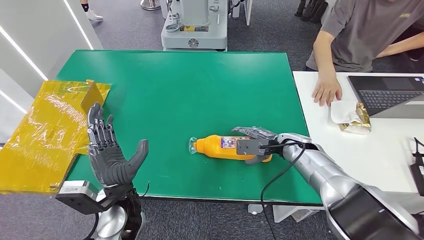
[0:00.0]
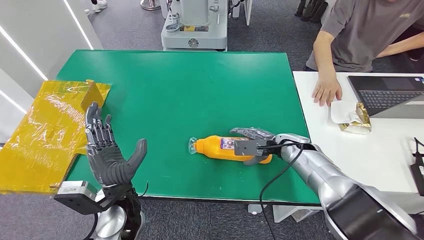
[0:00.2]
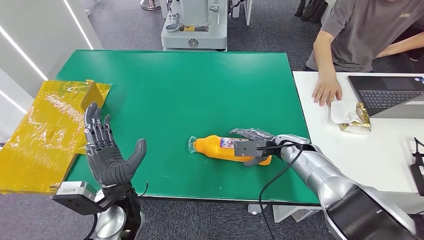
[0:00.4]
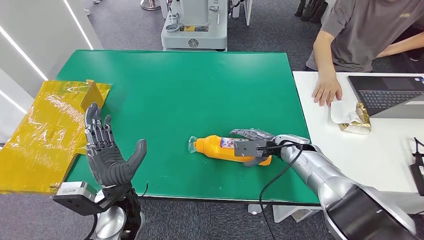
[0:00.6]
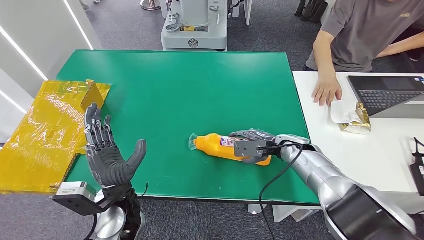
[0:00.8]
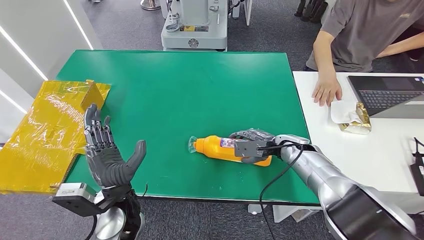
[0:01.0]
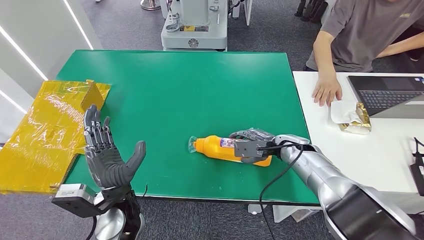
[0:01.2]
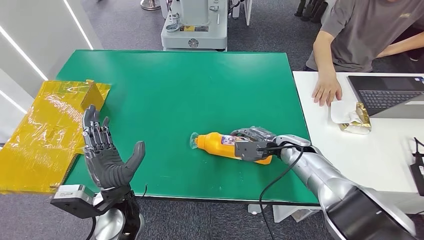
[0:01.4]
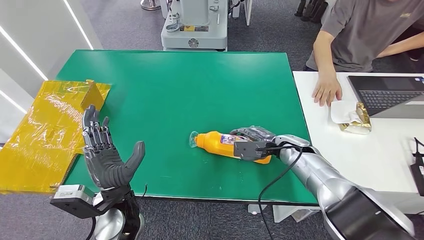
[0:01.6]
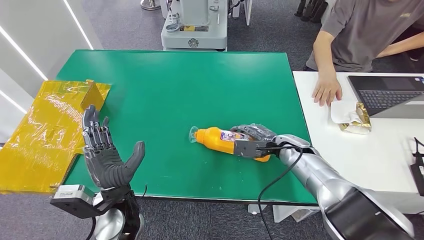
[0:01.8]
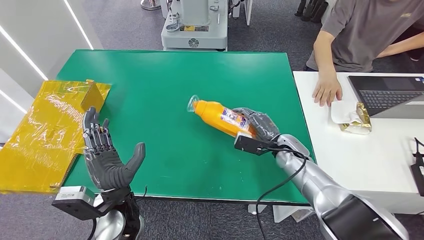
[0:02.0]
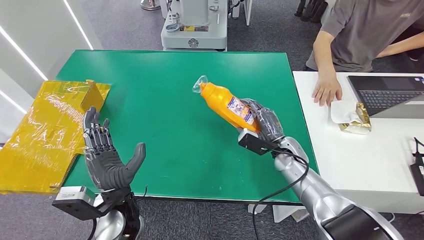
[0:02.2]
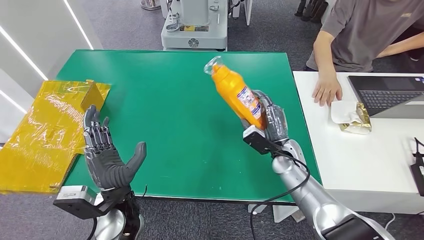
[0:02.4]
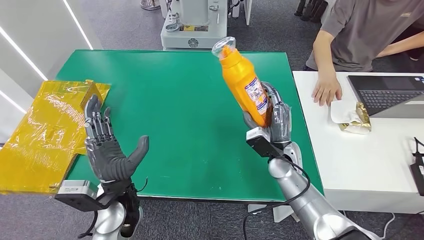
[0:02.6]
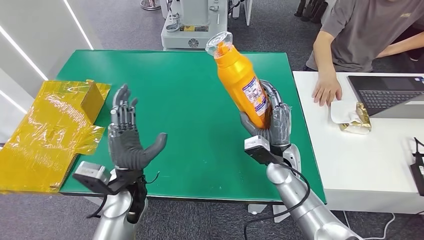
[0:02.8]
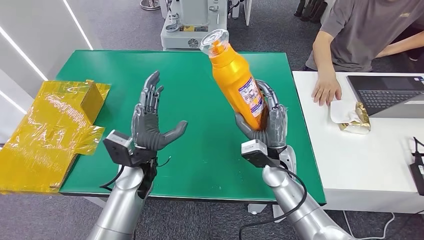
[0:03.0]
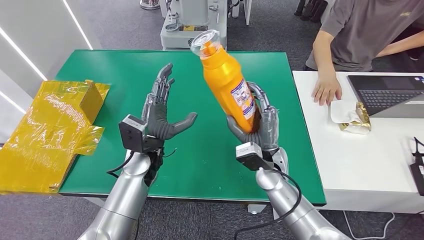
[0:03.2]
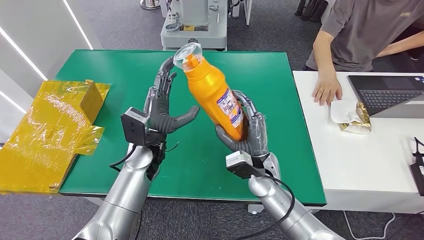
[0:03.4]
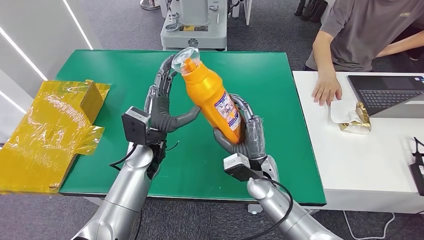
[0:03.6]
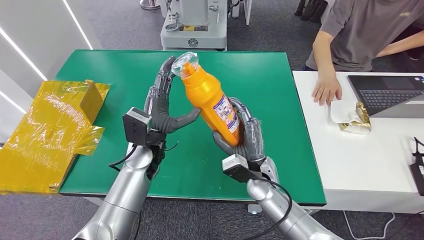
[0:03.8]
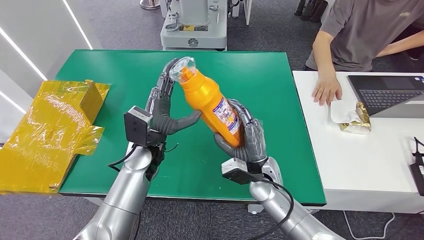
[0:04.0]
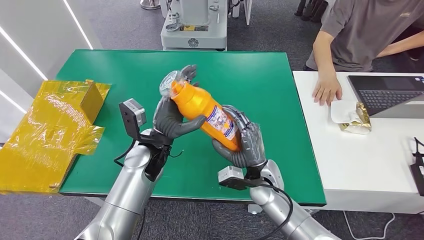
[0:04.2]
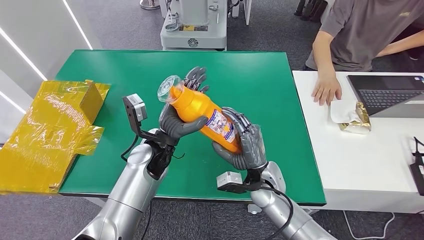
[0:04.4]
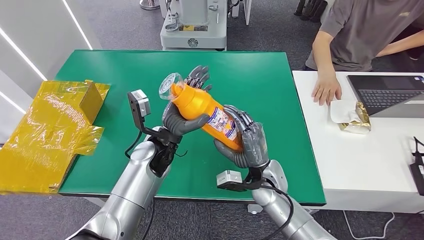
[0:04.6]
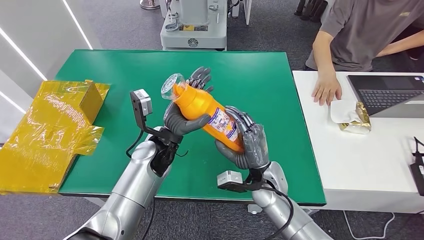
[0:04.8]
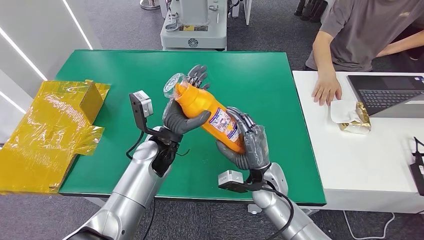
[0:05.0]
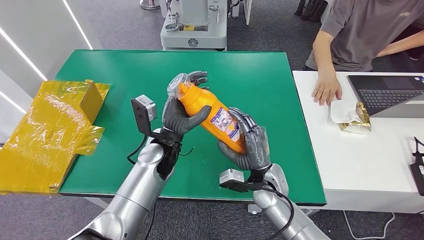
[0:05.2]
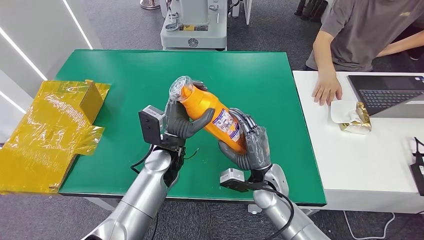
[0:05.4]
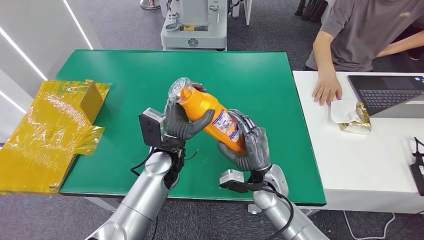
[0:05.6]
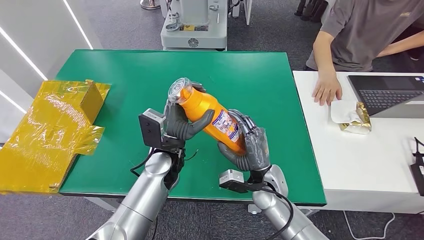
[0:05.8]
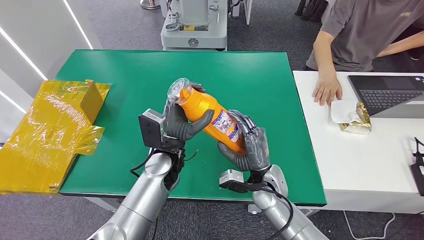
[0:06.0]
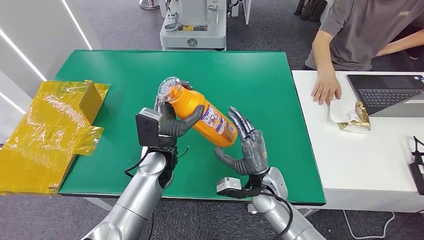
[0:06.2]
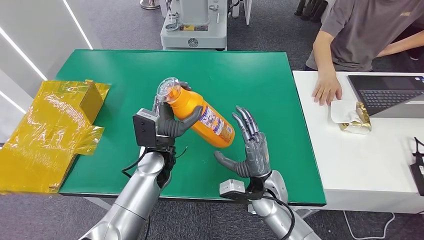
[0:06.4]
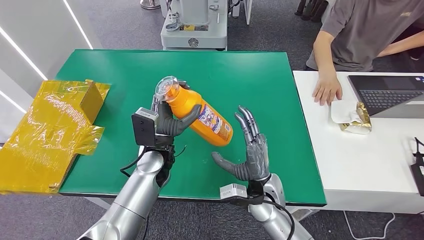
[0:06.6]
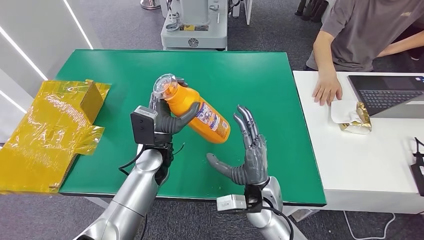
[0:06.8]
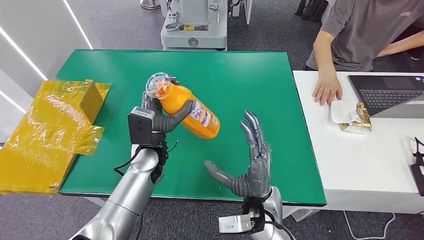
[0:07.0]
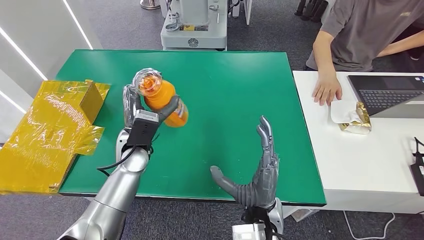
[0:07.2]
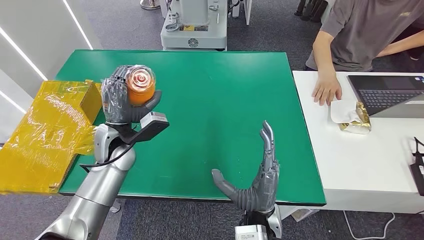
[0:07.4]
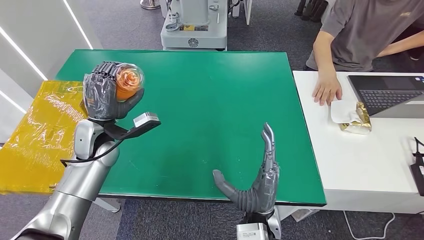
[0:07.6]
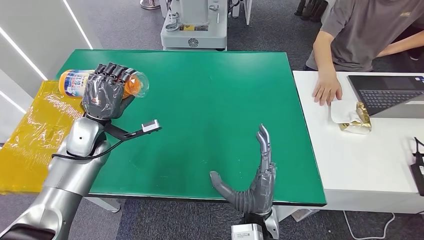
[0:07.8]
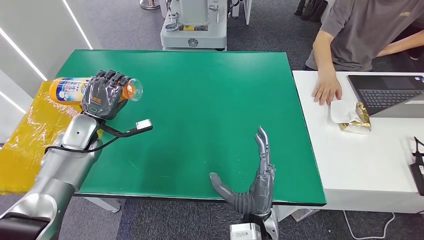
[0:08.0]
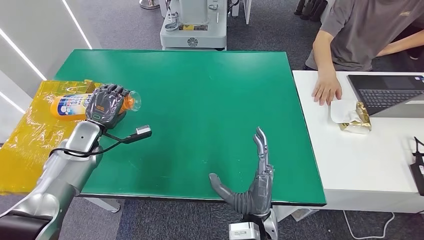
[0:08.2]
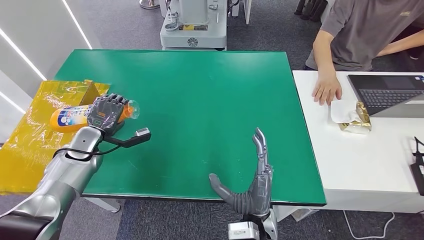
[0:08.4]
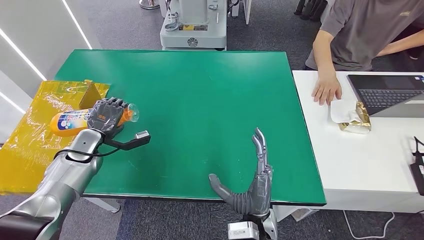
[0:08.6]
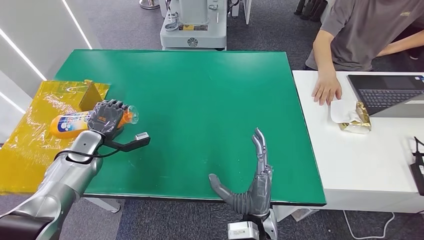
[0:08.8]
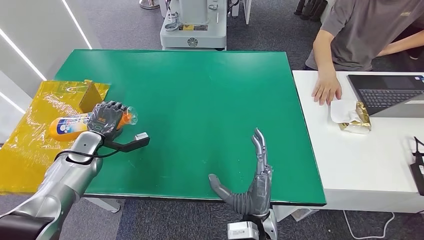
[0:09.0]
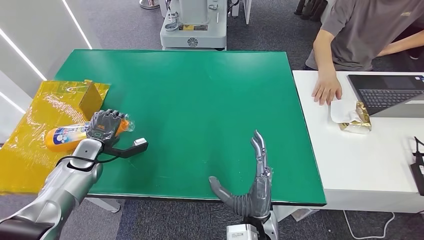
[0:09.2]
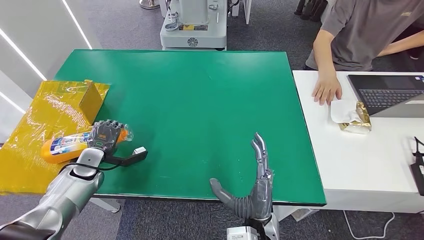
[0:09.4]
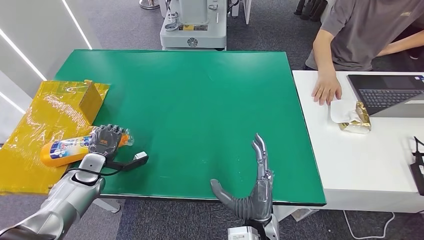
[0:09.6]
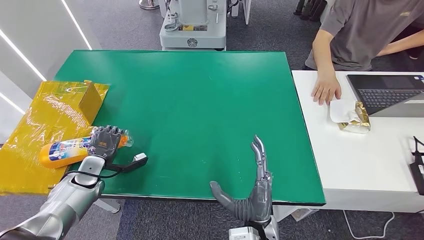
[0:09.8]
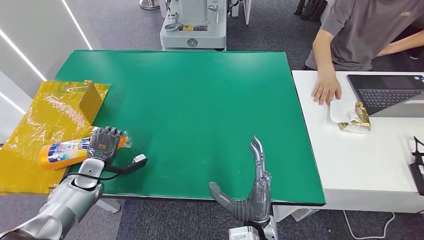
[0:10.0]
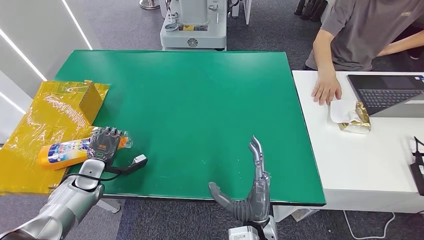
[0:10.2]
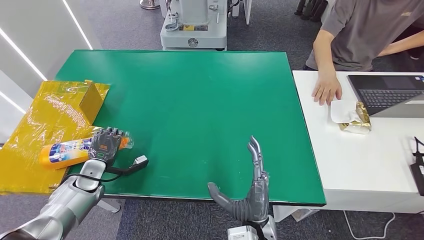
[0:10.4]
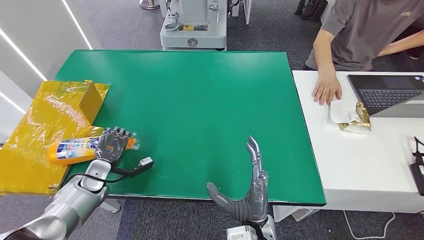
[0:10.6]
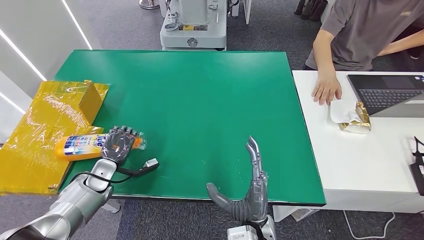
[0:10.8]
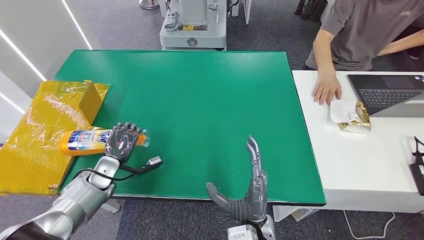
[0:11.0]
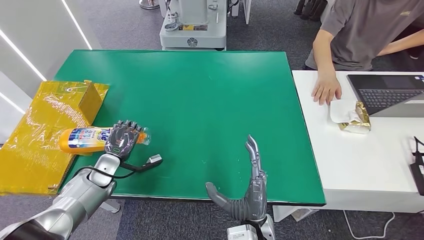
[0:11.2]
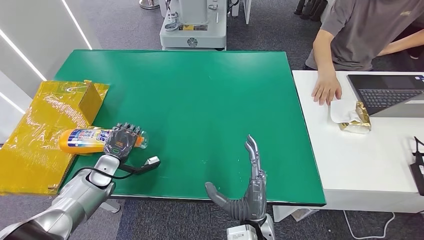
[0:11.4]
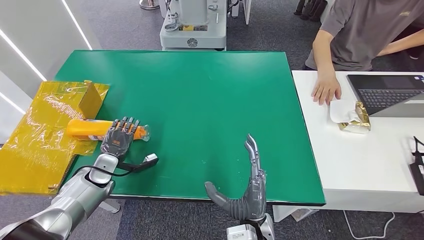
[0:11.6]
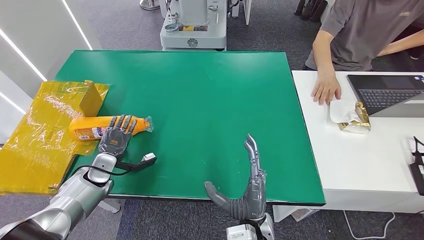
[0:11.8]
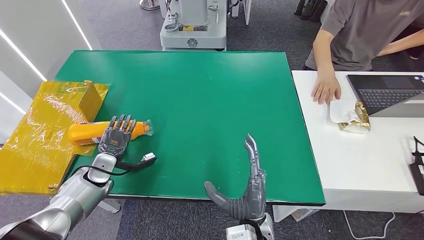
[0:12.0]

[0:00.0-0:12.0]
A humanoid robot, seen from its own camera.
Step, 0:00.0 to 0:03.4: Pick up the bottle from the table.
0:00.0 to 0:01.6: The hands stay close to where they were, moving slightly.
0:03.0 to 0:04.4: The left hand moves approximately 5 cm. The right hand changes place by about 5 cm.
0:06.0 to 0:07.6: The left hand travels to the left by approximately 15 cm. The right hand is displaced backward and to the left by some 10 cm.
0:07.6 to 0:09.0: The left hand goes roughly 15 cm to the left and downward.
0:09.0 to 0:10.4: The left hand moves downward and backward, some 10 cm.
0:10.4 to 0:12.0: The hands move only a little.

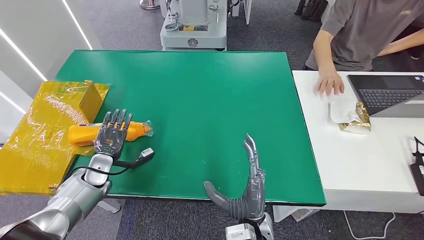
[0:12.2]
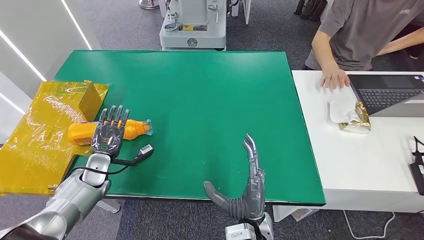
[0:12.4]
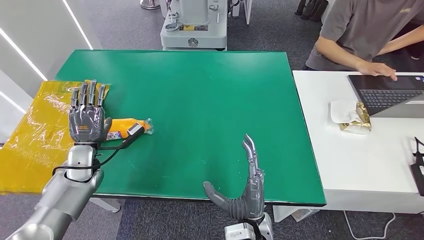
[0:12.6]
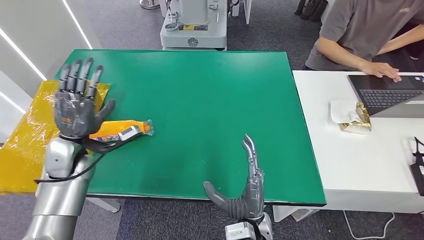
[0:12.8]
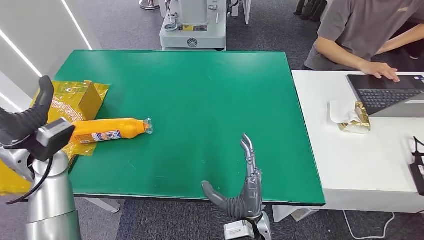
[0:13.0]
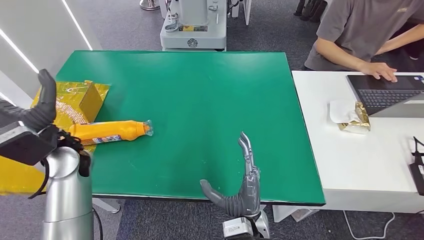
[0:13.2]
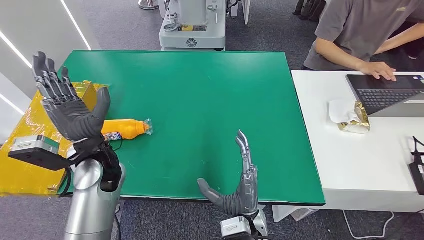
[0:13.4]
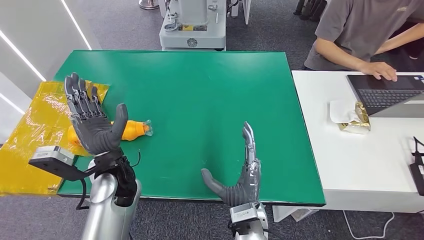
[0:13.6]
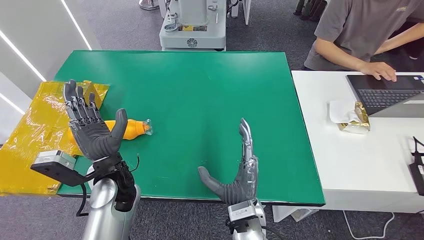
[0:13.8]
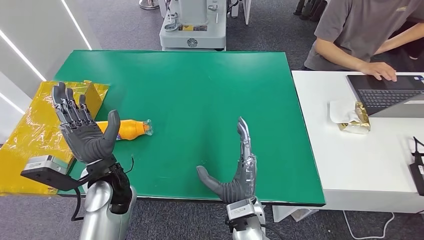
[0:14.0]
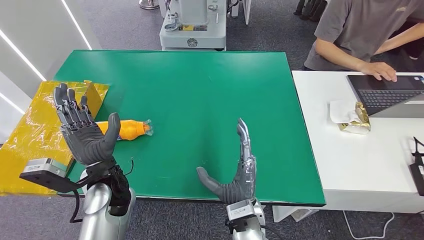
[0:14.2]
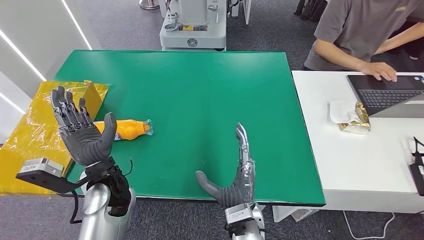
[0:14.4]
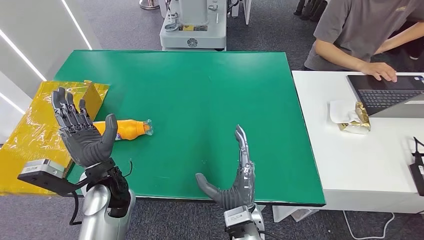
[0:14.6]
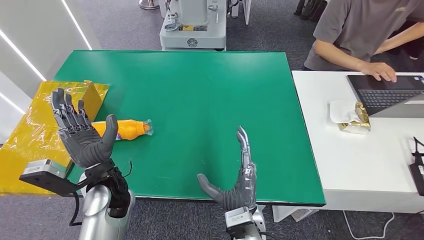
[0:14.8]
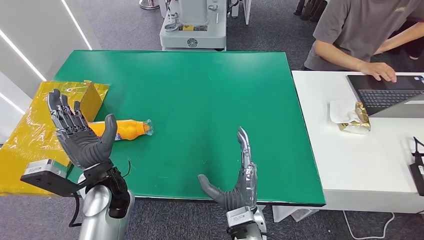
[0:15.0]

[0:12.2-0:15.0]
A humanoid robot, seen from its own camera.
Step, 0:12.2 to 0:15.0: Turn the bottle to the front side.
0:12.2 to 0:13.6: The left hand heads to the right and upward, covering roughly 20 cm.
0:13.6 to 0:15.0: There are only small adjustments of the hands.
